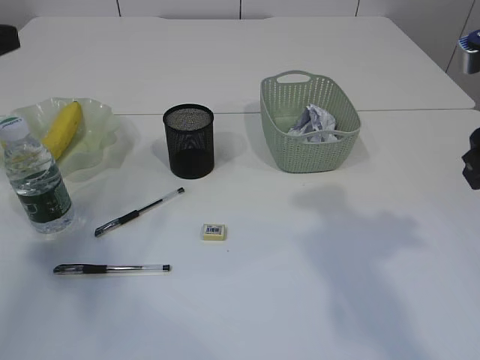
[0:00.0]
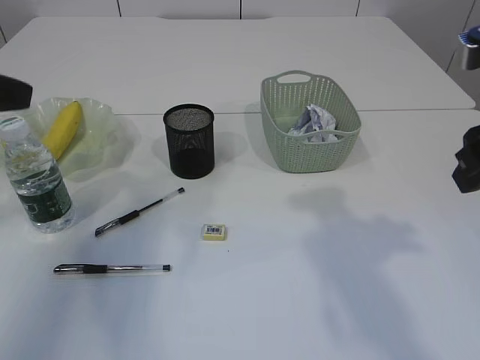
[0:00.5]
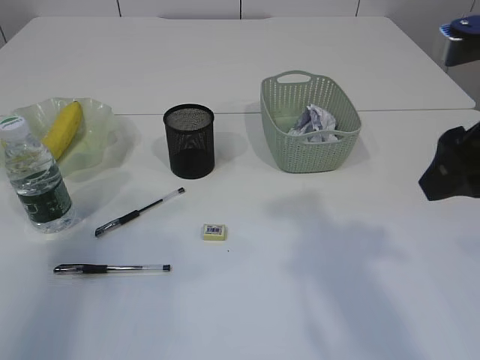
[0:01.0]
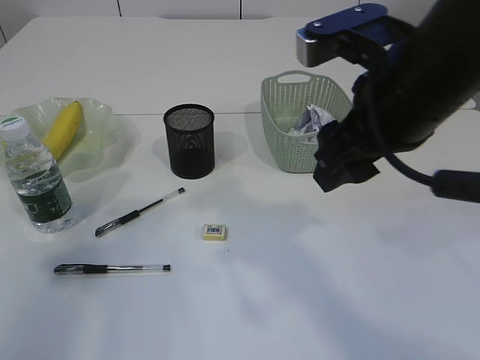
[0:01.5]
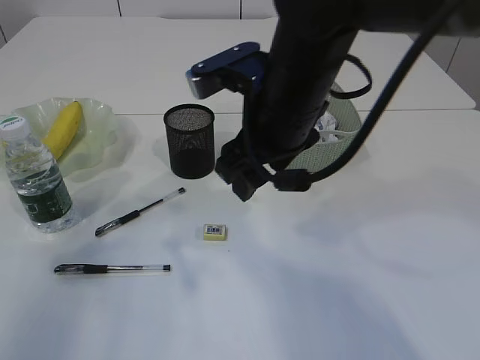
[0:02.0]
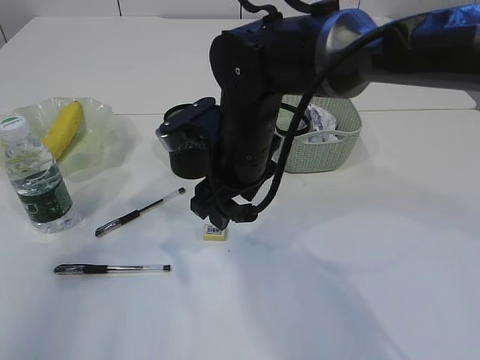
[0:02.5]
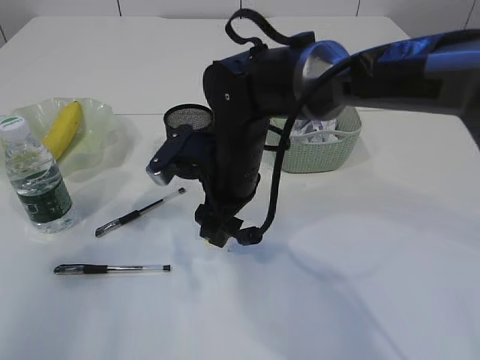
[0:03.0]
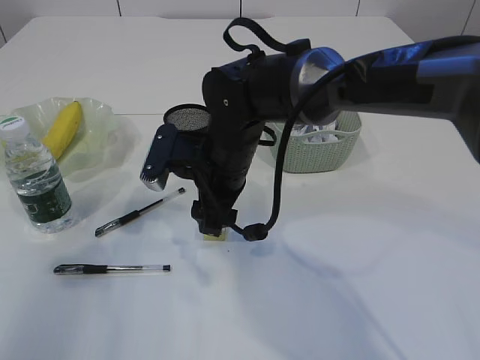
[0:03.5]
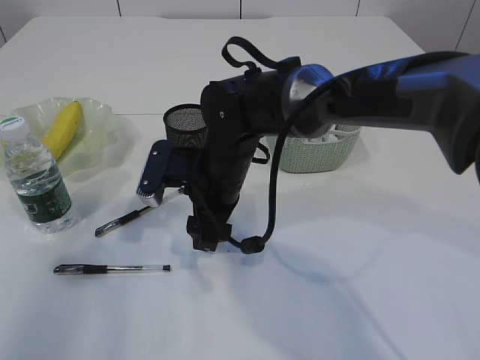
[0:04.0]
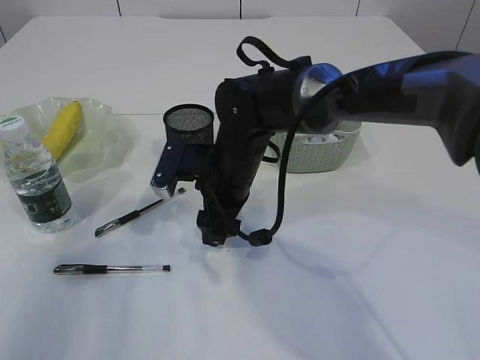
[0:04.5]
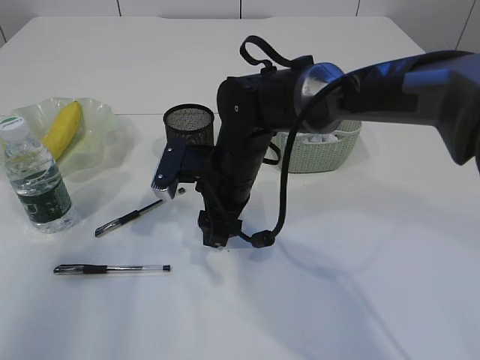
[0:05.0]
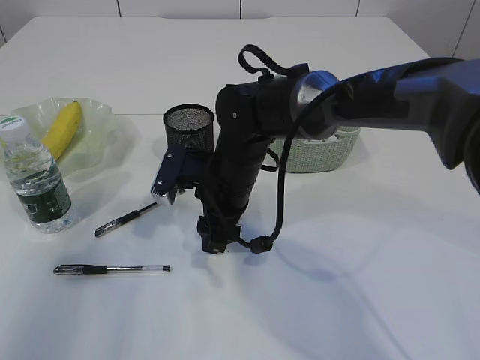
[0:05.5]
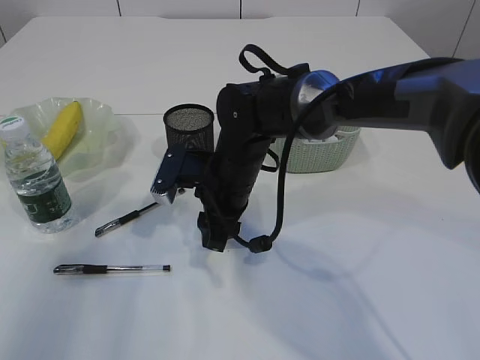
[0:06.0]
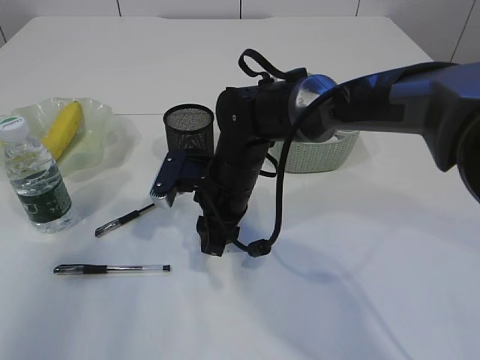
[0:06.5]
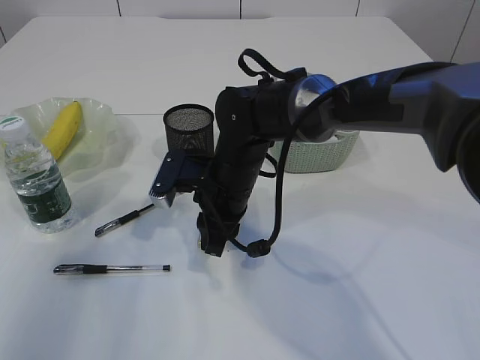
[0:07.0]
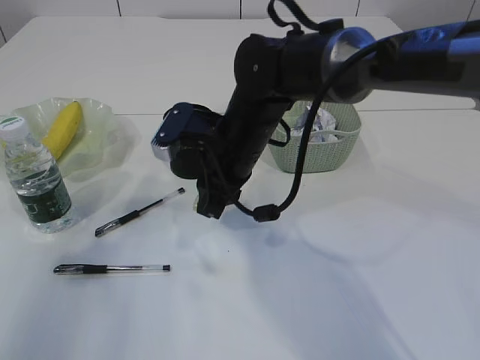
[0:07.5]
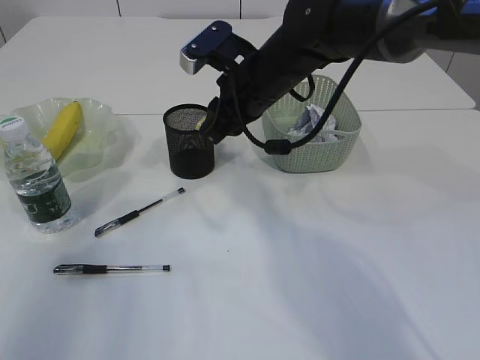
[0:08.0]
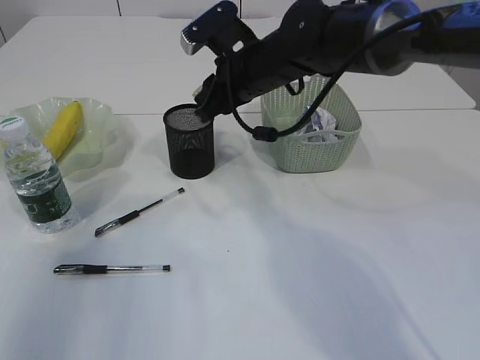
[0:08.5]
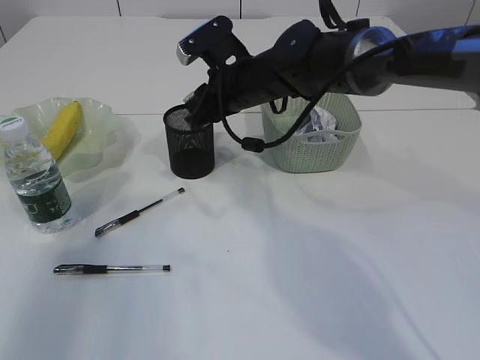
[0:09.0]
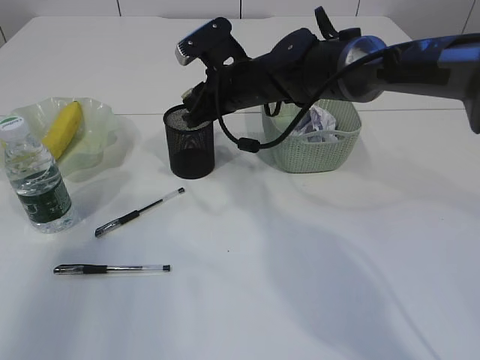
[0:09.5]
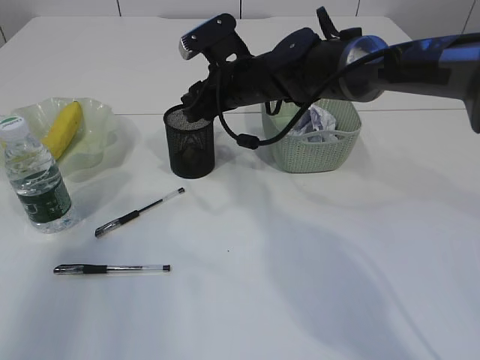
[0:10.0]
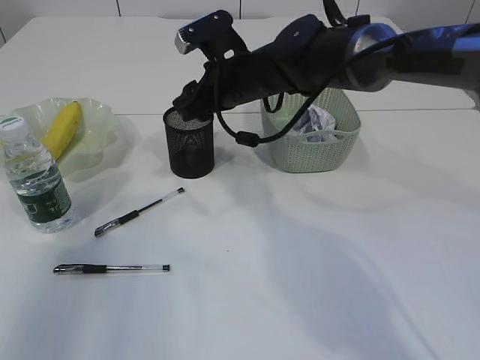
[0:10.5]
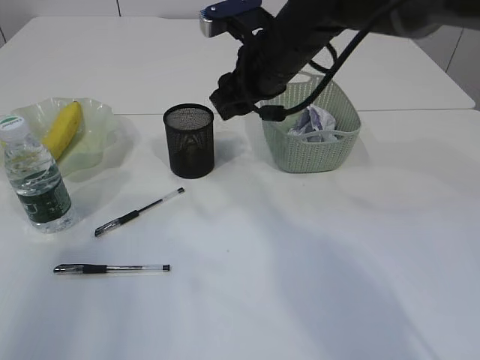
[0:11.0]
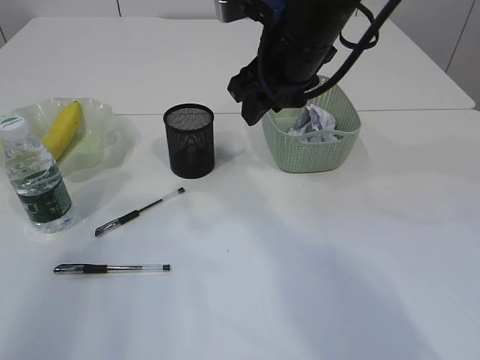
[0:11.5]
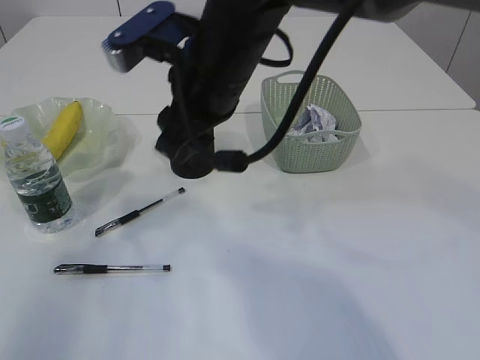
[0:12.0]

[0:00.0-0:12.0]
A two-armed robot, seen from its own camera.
Step, 0.0 to 7.5 s: Pick up the eraser.
Step, 8.0 to 10.5 s: Place the eraser into the pen holder.
0.0 to 2.0 s: The left gripper goes about 10 cm backward. Meanwhile the right gripper heads to the left and forward, covering about 20 cm.
2.0 to 4.0 s: The right gripper shifts about 15 cm downward, to the left and forward.
4.0 to 6.0 s: The grippers move only a little.
6.0 to 8.0 s: The right gripper goes approximately 10 cm upward.
8.0 to 10.0 s: The right gripper shifts by approximately 5 cm.
10.0 to 12.0 s: The right gripper travels backward and upward by some 15 cm.

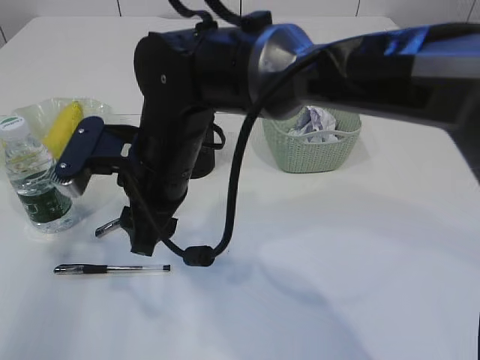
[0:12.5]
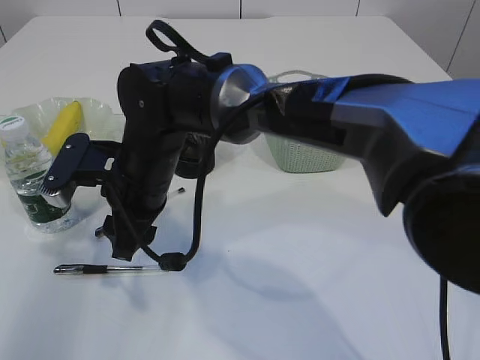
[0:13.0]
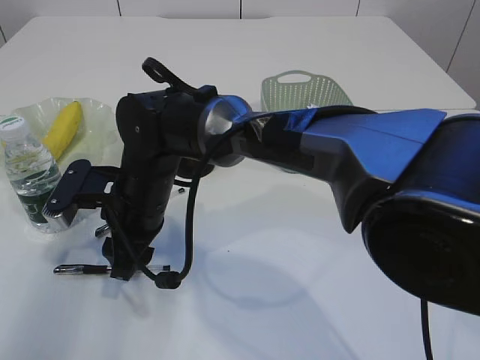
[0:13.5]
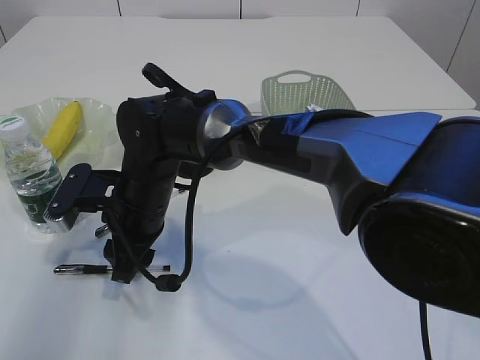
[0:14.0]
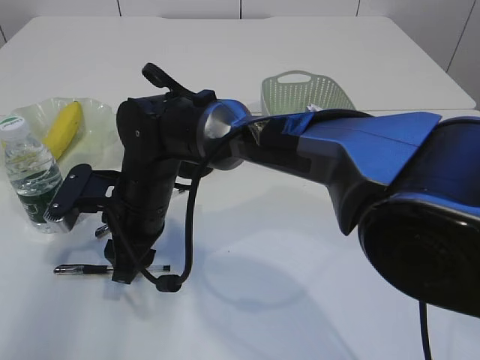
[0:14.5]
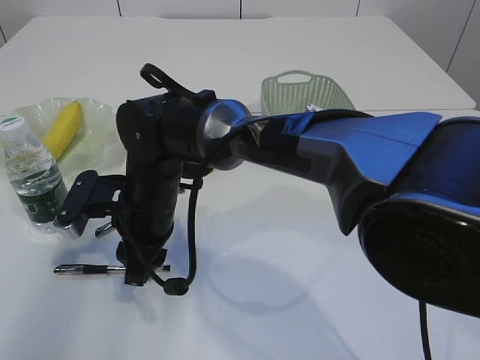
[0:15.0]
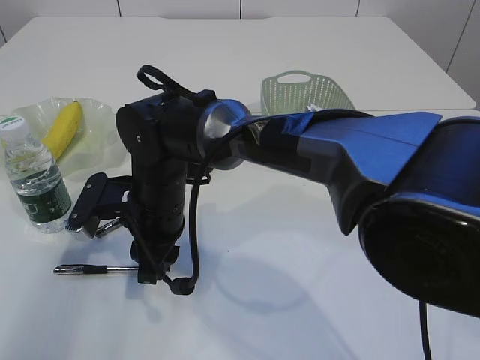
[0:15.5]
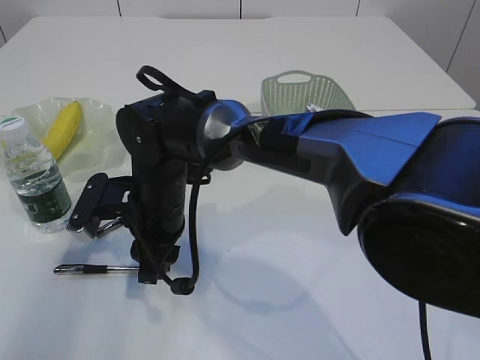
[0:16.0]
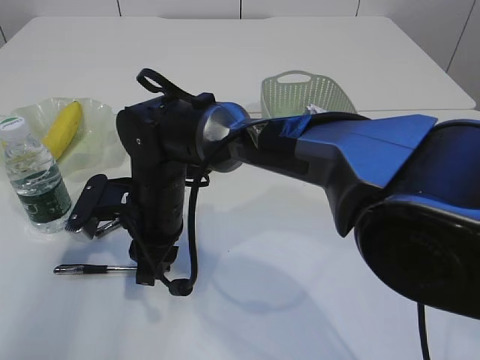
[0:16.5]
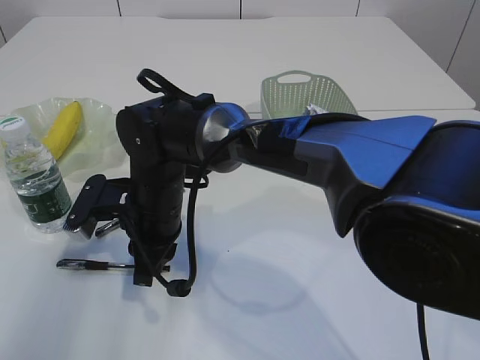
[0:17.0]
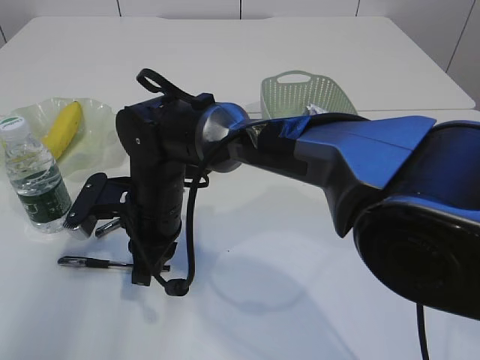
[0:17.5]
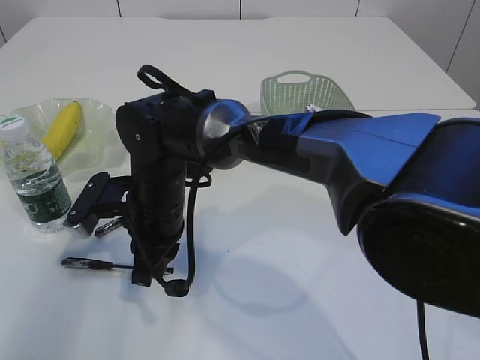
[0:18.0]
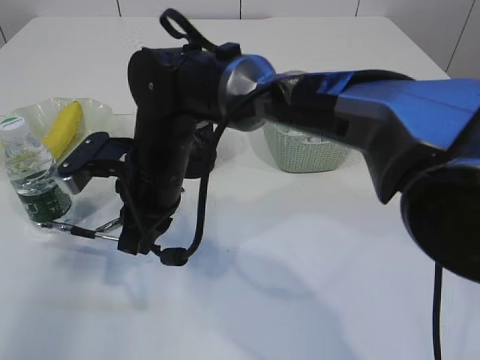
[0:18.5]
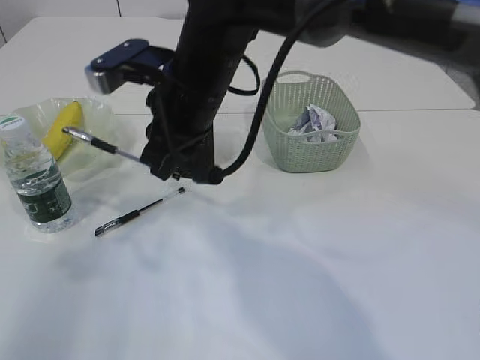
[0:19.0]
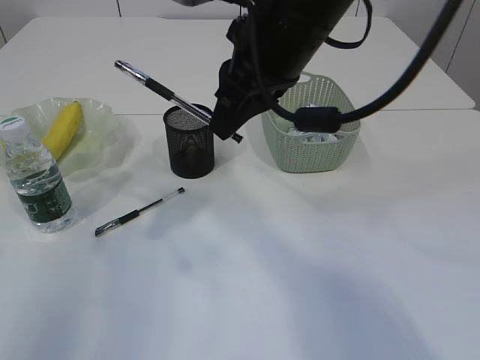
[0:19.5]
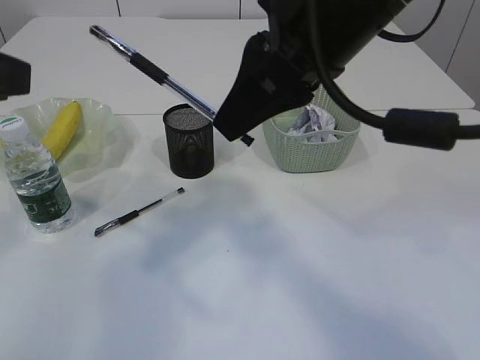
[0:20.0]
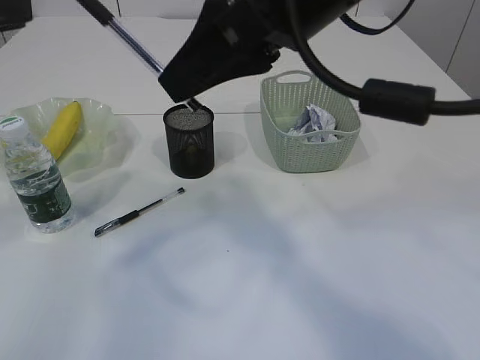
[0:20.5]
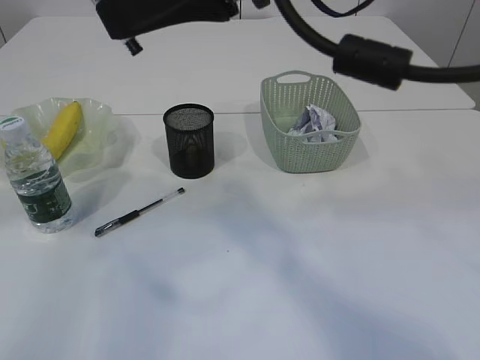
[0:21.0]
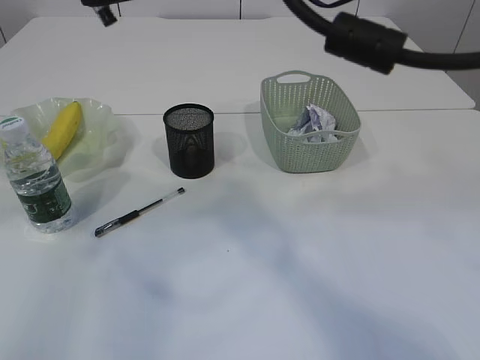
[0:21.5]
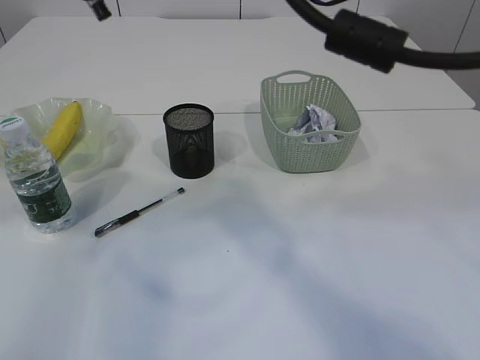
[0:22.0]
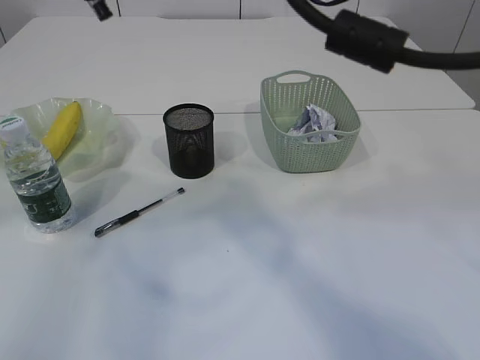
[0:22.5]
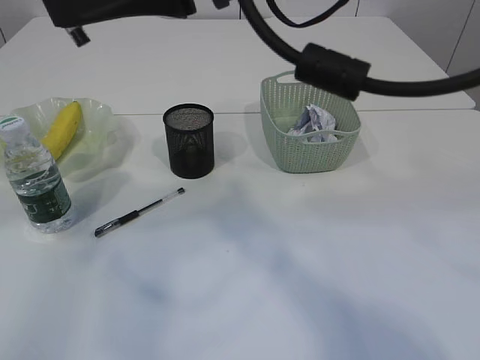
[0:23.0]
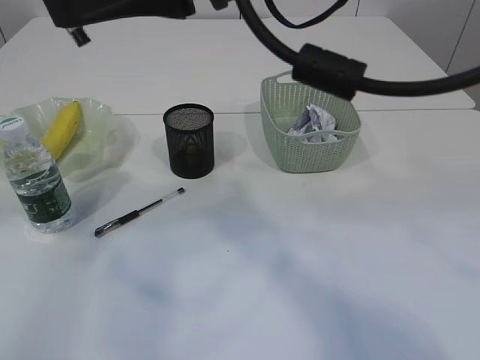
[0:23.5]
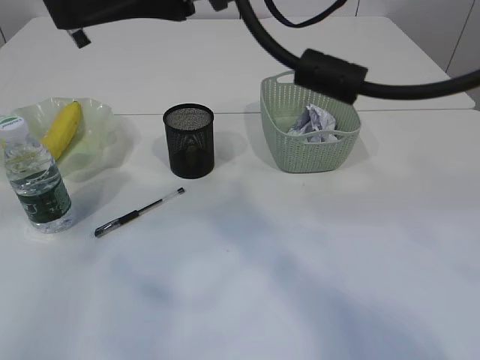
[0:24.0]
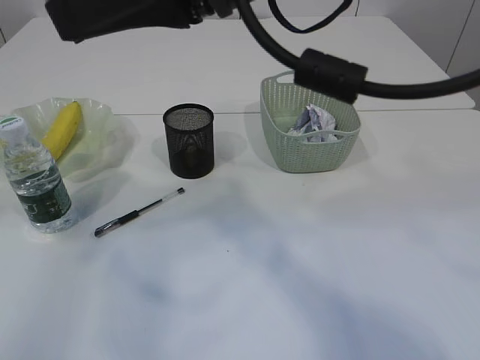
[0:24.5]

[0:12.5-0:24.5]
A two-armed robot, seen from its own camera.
Step, 12.5 to 18.5 s: Pick up the pen with right arm.
12.5 to 14.5 s: The right gripper shifts approximately 5 cm downward.
14.5 to 16.5 s: The grippers move only a little.
18.5 to 20.5 s: The left gripper moves upward and to the right, approximately 10 cm. The right gripper travels upward and to the right by roughly 25 cm.
22.5 to 24.5 s: The left gripper closes up.

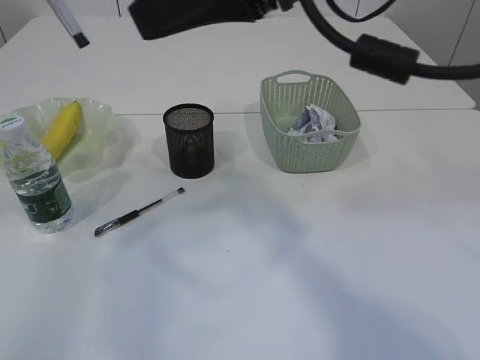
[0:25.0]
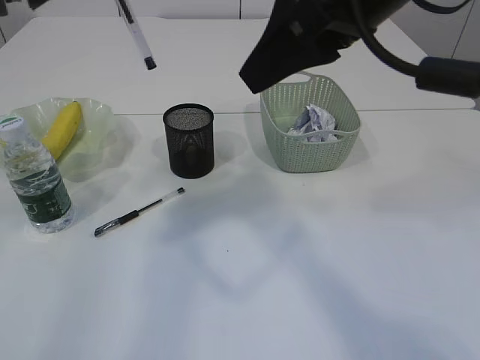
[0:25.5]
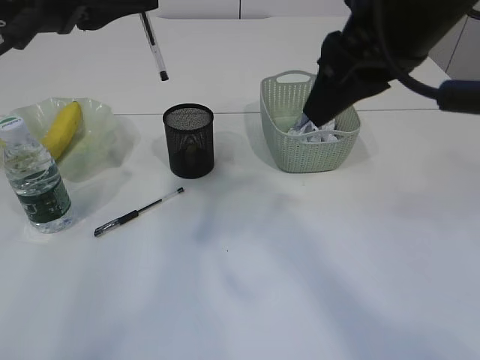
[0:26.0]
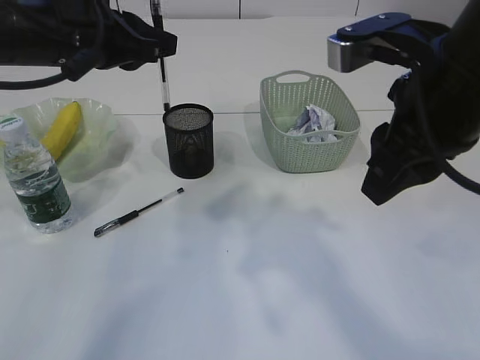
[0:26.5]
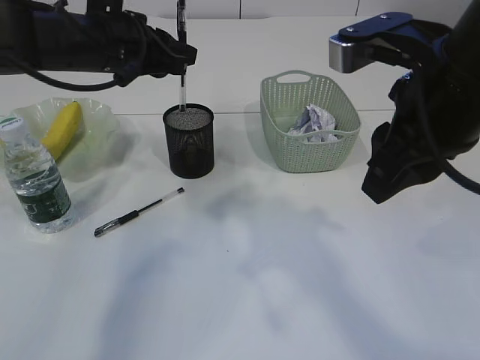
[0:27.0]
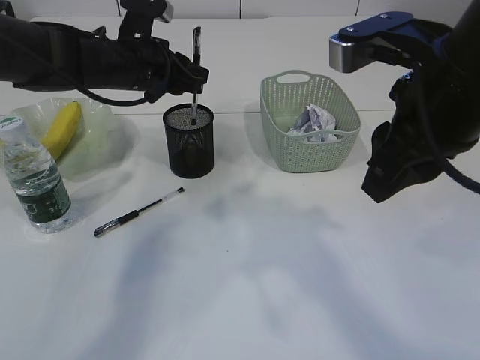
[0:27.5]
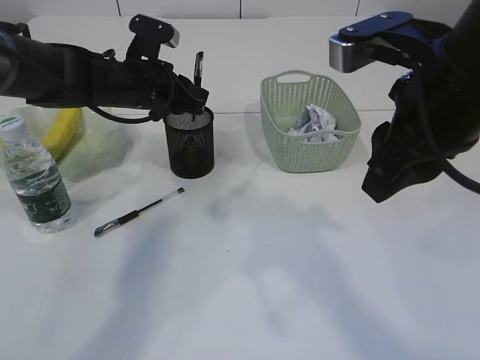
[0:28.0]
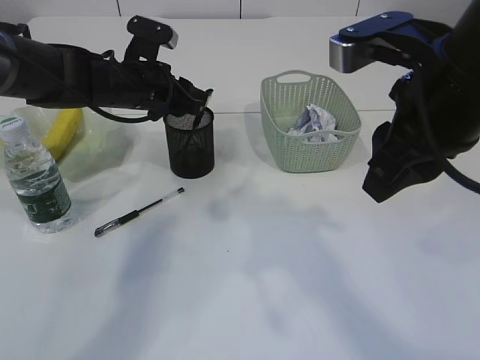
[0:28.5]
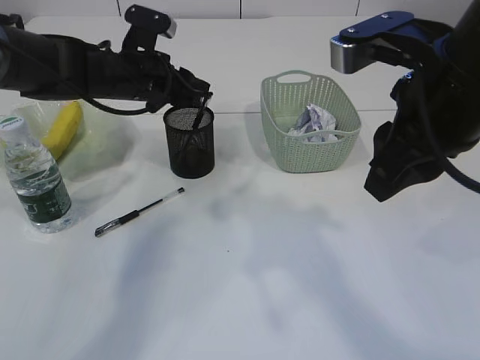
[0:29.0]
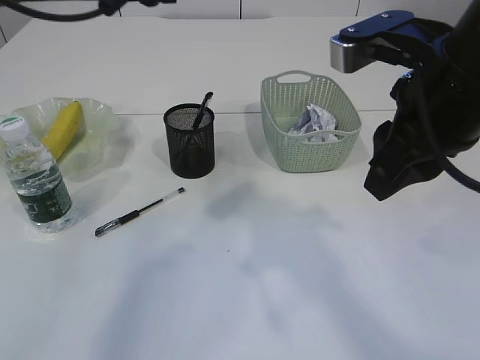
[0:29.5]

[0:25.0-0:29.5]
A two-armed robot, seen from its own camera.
Step, 25.0 to 29.0 s: Place the pen into the pen holder.
25.0 to 27.0 s: The right gripper travels to the right and downward by some 10 cm. The left gripper is displaced forward, downward and to the right by roughly 25 cm.
27.0 to 29.5 s: The left gripper heads upward, covering some 5 cm, and opens up.
